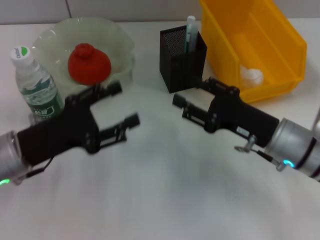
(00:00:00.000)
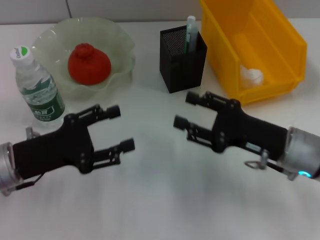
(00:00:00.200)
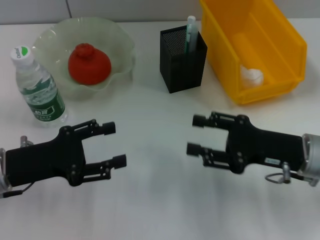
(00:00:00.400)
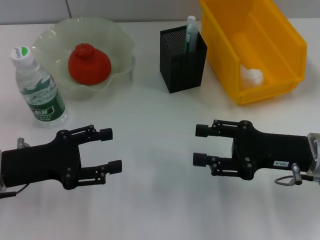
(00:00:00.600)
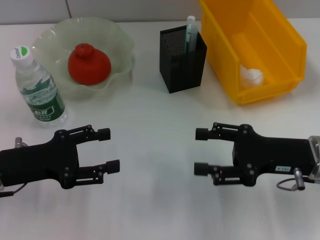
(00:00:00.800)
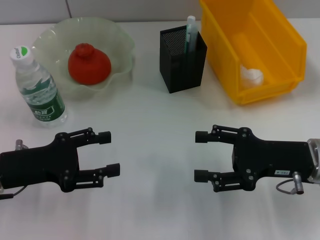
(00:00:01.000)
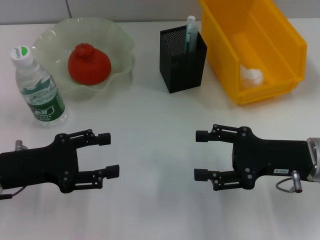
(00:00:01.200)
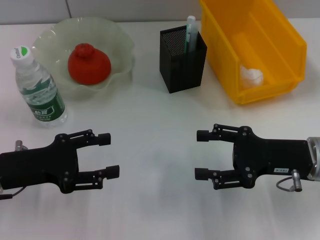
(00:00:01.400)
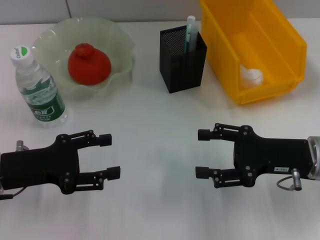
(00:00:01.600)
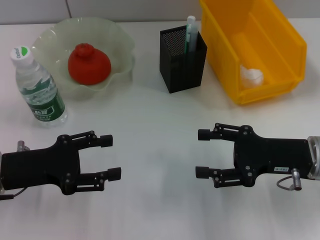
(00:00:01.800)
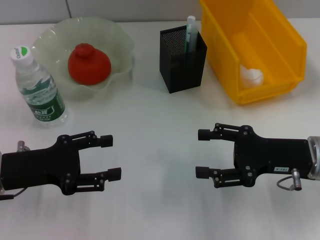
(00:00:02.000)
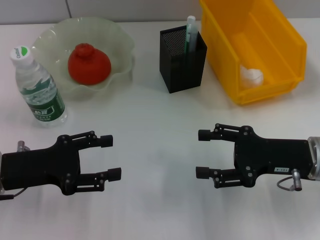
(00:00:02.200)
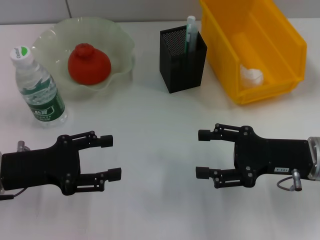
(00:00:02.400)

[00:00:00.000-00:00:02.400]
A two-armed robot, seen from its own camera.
00:00:00.000 to 00:00:01.200: The right gripper ends up roughly 5 cm from where it was.
00:00:01.200 to 00:00:02.400: The two grippers keep their place.
